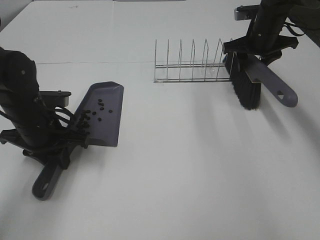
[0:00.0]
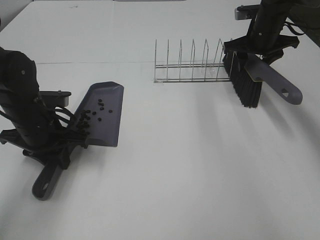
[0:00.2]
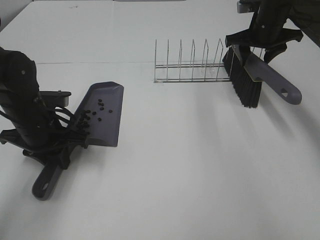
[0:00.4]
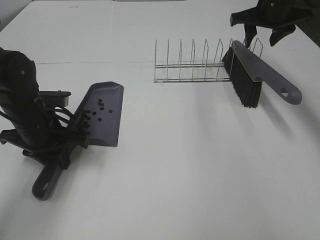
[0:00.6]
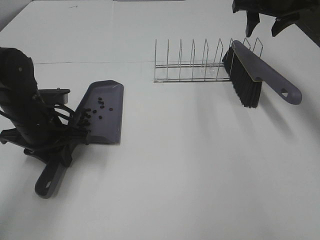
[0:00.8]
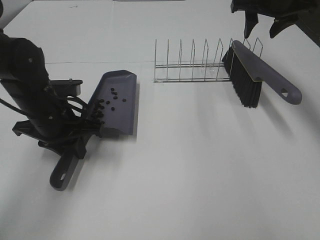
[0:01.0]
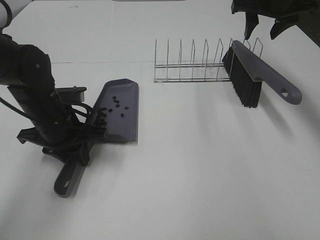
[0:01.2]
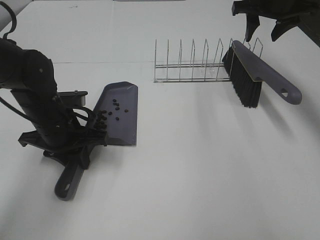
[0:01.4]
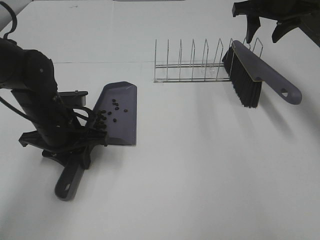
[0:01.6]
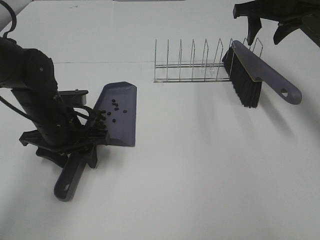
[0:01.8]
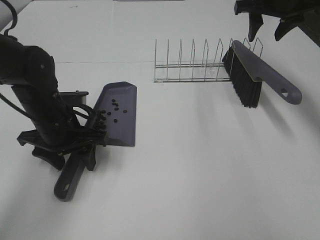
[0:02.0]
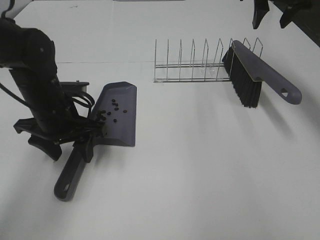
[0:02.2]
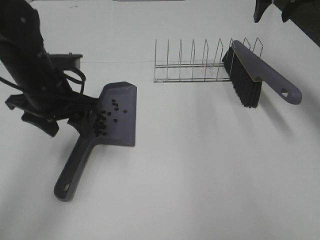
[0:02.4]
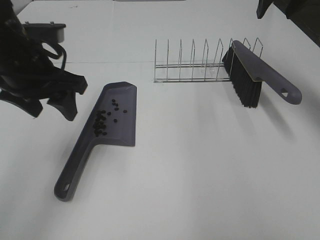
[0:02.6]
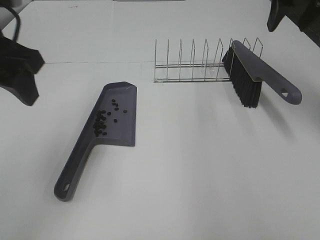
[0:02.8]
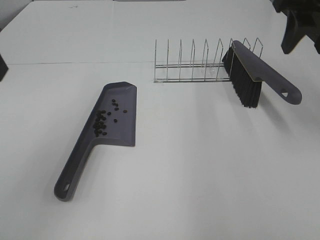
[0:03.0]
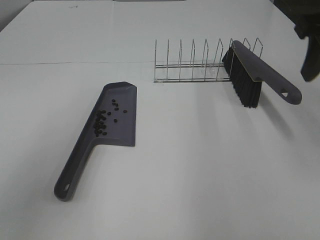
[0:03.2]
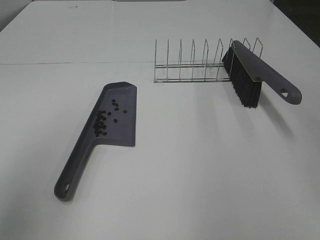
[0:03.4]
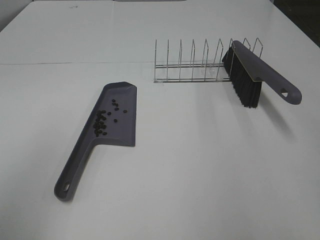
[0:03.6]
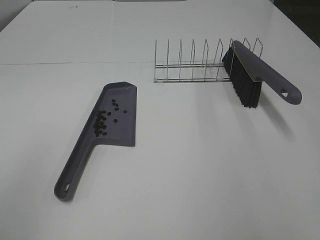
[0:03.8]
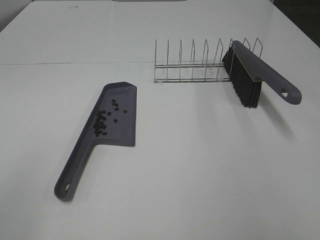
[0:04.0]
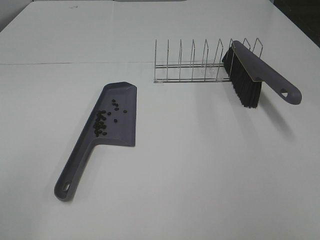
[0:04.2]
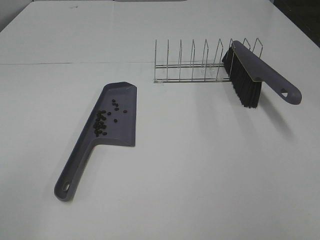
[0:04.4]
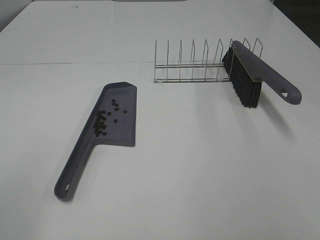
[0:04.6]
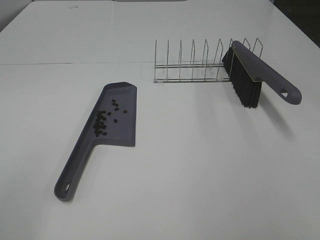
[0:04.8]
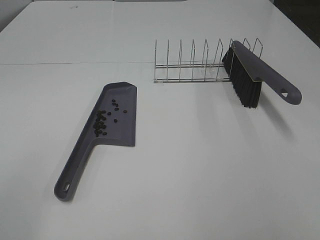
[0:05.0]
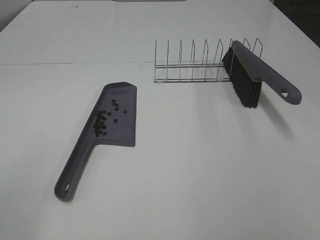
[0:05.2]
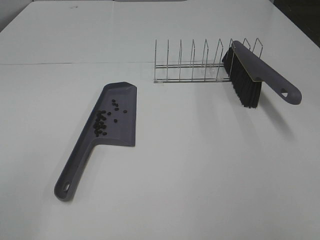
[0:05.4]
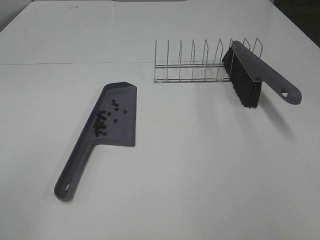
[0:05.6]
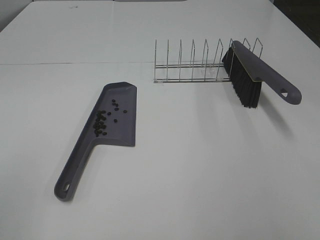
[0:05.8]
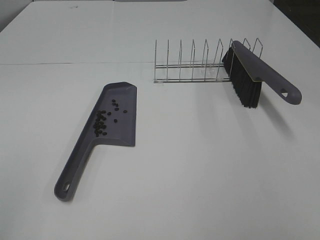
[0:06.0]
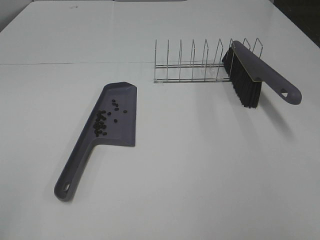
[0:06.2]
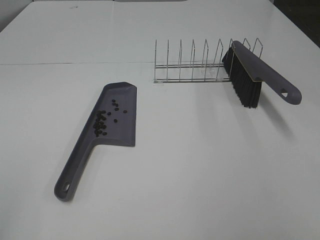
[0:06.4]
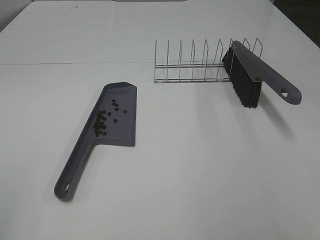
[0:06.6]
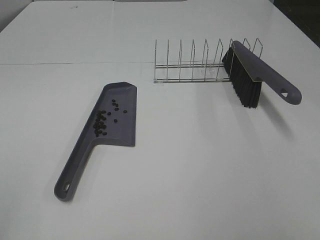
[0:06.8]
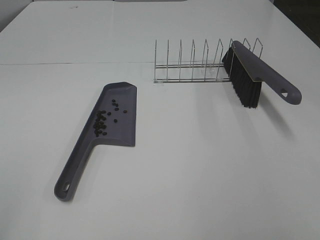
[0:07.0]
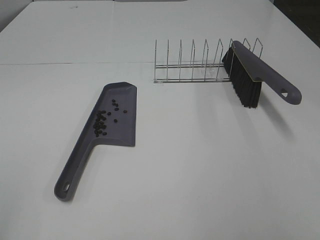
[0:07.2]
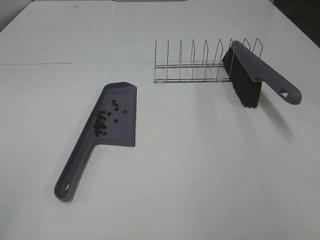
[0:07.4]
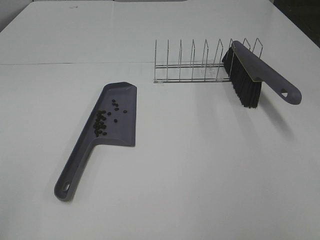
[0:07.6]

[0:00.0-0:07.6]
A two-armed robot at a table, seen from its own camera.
Task of the whole recording: Sweep Coffee Bean.
Step, 0:00.4 to 0:02.0: Left hand:place the dustpan on the table.
0:00.0 to 0:01.6: The right gripper is displaced upward by some 10 cm.
0:01.6 to 0:03.0: The left gripper shifts approximately 25 cm upward, and opens up. Meanwhile the right gripper goes about 15 cm backward and upward.
0:03.0 to 0:04.6: The right gripper shifts about 30 cm backward.

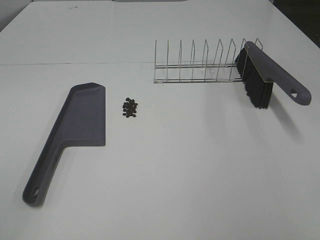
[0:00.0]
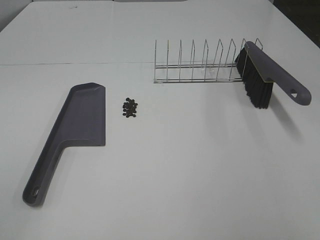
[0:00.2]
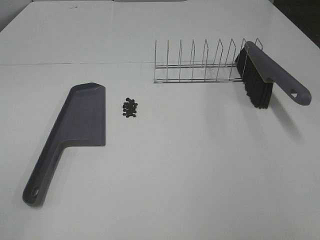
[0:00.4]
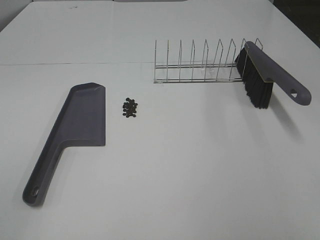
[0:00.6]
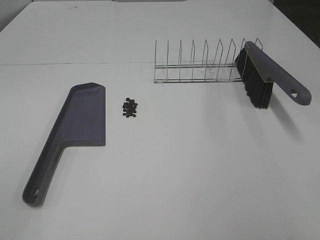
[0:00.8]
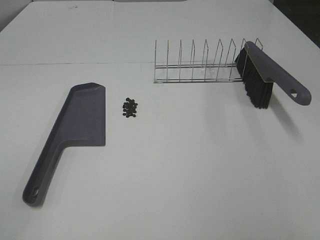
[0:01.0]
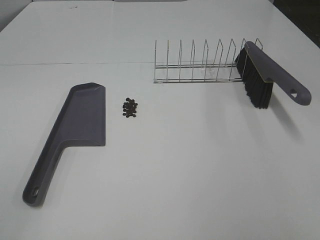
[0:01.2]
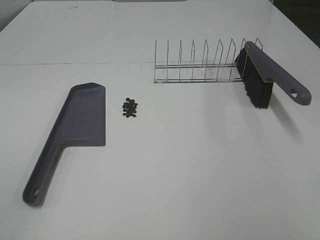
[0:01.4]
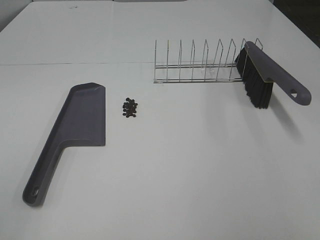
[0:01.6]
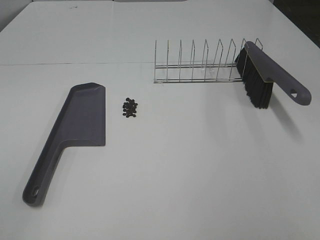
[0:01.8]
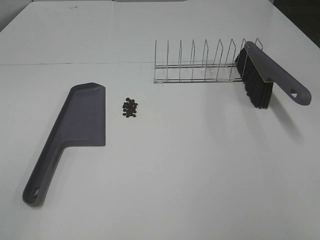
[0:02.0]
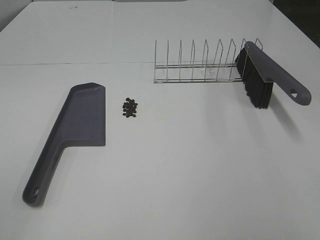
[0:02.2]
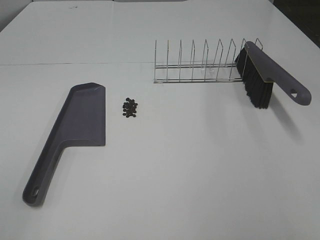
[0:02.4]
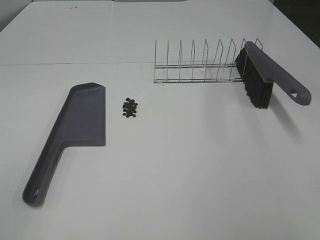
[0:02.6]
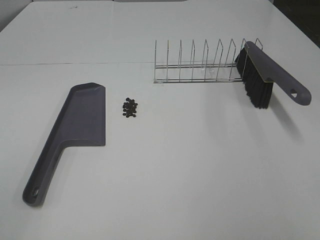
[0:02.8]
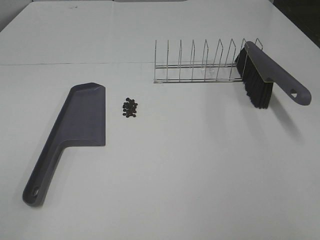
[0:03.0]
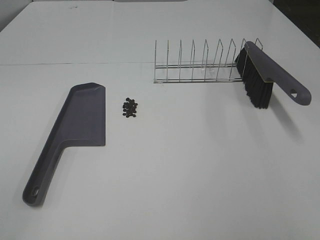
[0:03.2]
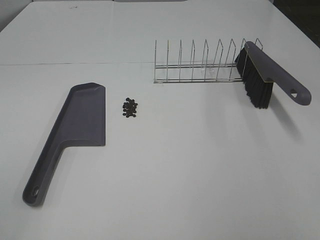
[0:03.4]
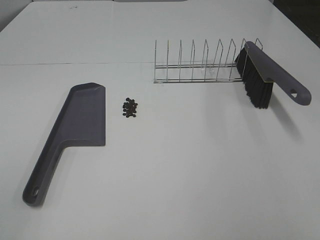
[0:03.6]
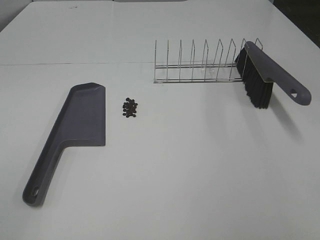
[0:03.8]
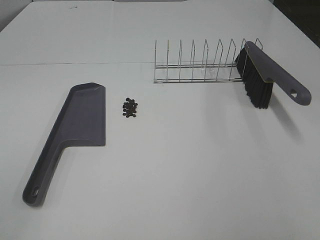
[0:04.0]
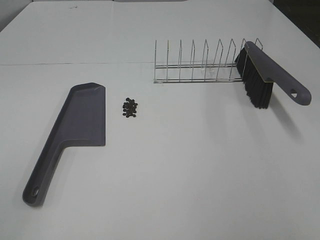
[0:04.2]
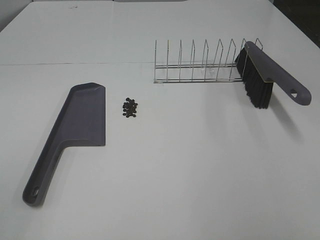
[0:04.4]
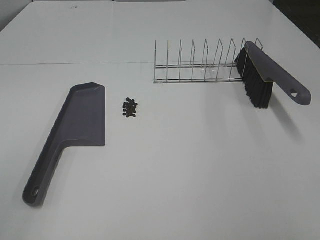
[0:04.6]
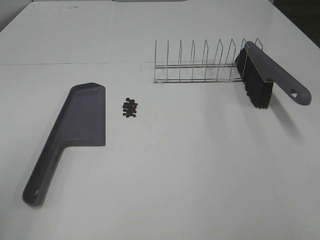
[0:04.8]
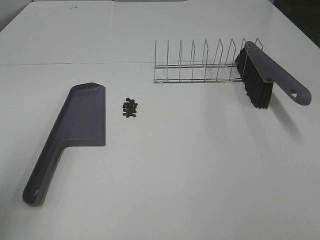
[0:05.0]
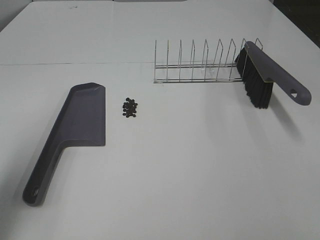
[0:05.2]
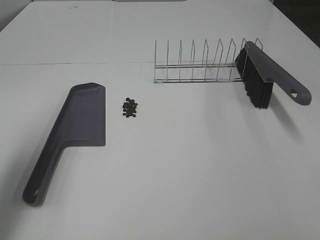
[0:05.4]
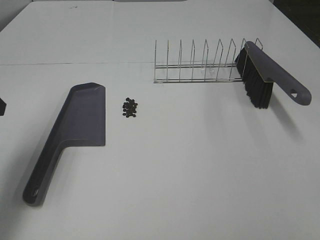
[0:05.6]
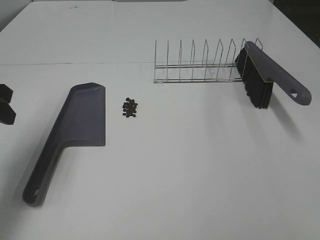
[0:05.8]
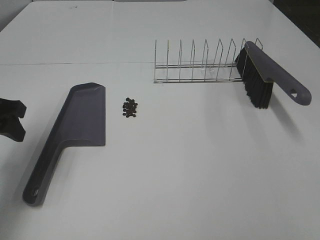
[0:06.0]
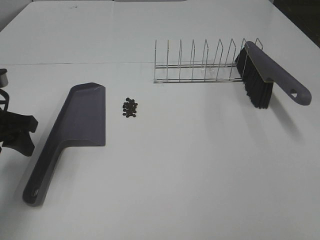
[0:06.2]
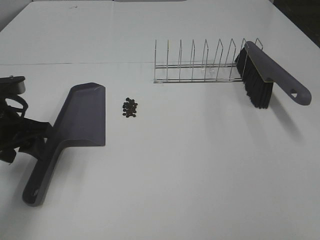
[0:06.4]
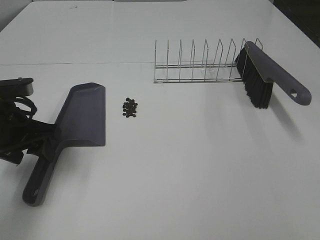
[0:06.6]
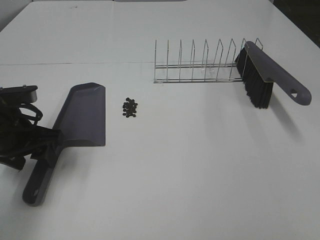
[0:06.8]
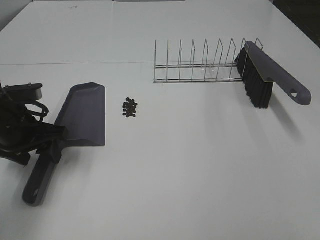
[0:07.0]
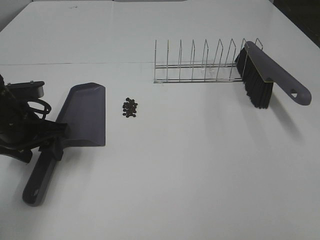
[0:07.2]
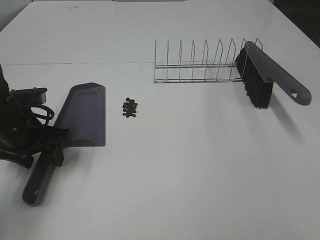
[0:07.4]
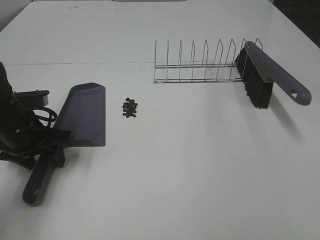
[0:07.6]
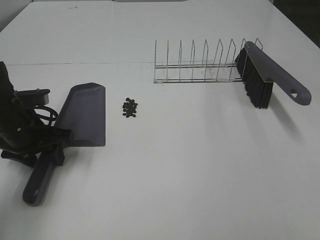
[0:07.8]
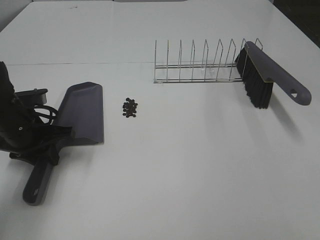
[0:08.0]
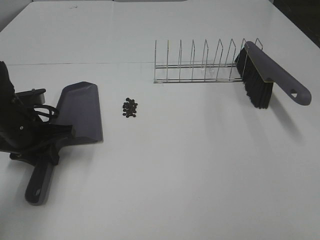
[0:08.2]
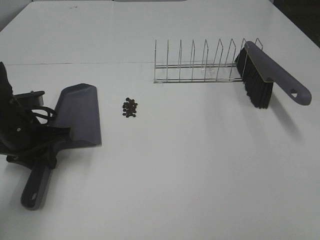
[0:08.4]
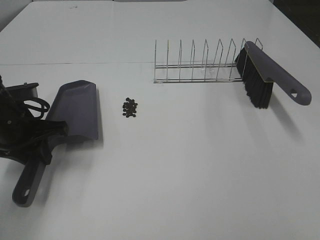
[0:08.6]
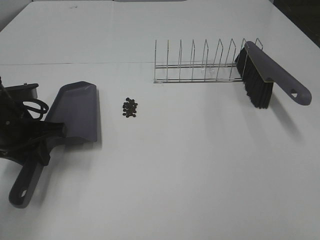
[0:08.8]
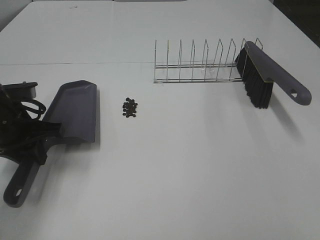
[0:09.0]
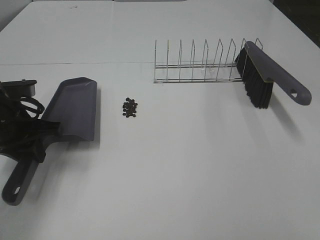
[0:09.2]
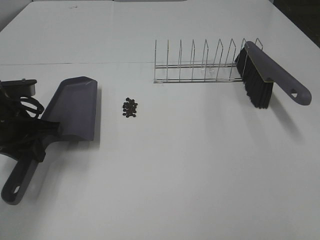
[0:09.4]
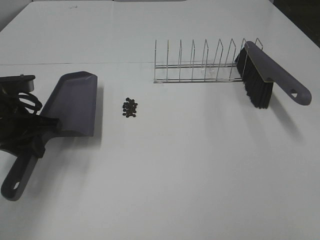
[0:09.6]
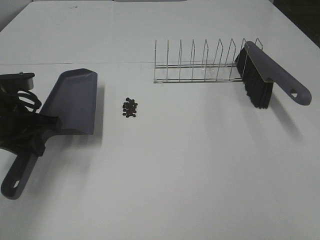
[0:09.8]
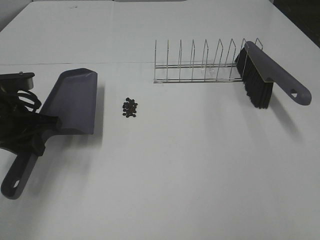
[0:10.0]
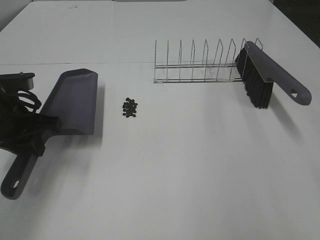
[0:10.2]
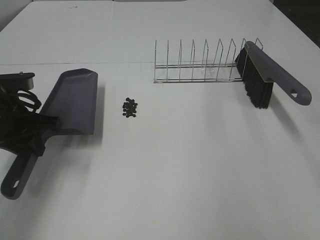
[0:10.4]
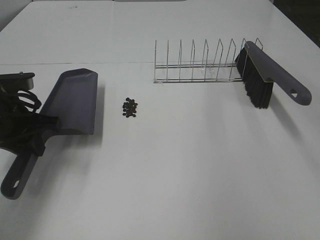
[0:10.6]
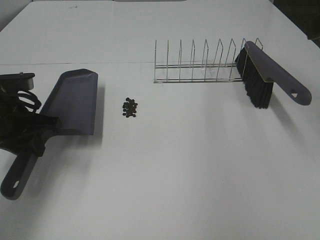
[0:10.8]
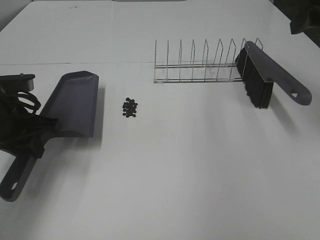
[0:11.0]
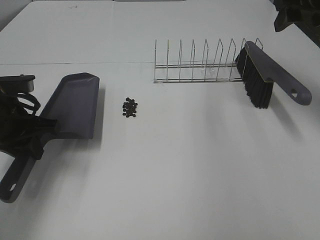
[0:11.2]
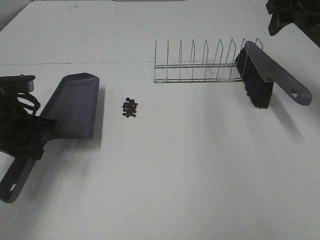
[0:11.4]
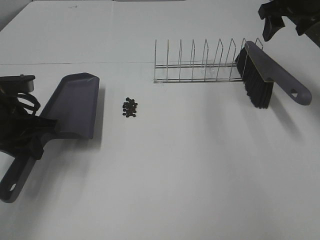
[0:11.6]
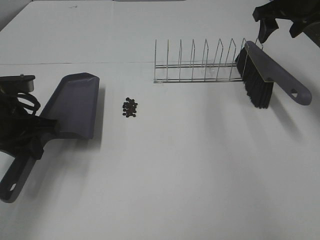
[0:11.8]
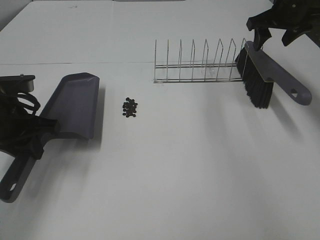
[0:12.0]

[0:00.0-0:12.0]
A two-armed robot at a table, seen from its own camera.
Task of the whole recording: Sweep Coffee Bean.
Step, 0:00.0 to 0:08.0: Left hand: grab the dustpan.
0:00.0 to 0:03.0: Both grippers stay about where they are.
0:04.4 to 0:06.0: The left gripper moves forward and downward, some 30 cm.
0:06.0 to 0:07.6: The left gripper moves downward, approximately 10 cm.
0:07.6 to 0:09.0: The left gripper closes up.
0:10.4 to 0:12.0: The right gripper shifts about 35 cm forward.

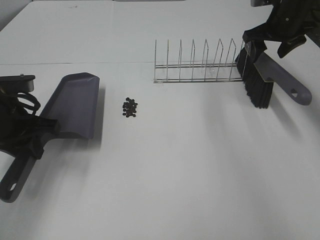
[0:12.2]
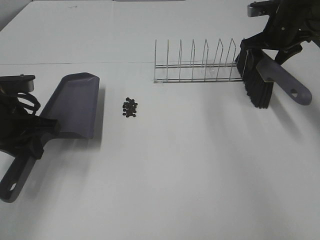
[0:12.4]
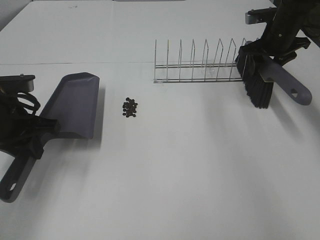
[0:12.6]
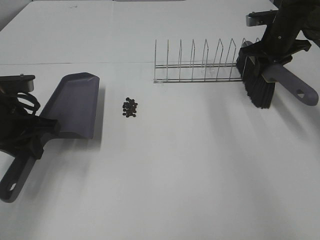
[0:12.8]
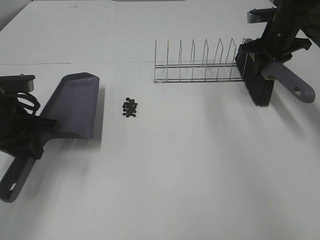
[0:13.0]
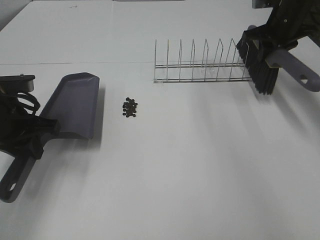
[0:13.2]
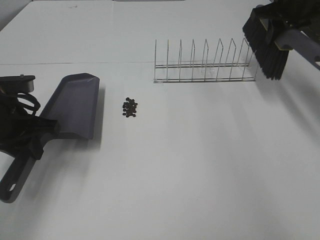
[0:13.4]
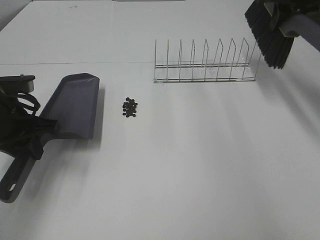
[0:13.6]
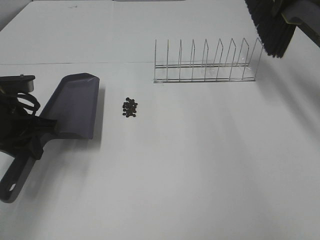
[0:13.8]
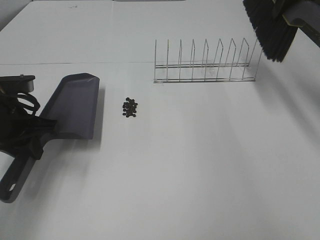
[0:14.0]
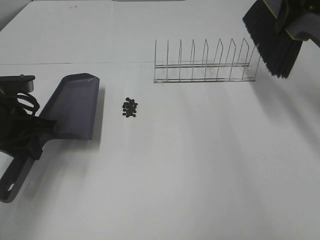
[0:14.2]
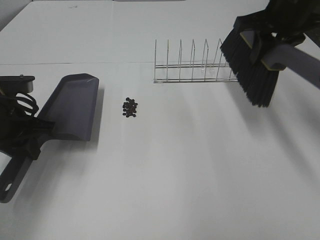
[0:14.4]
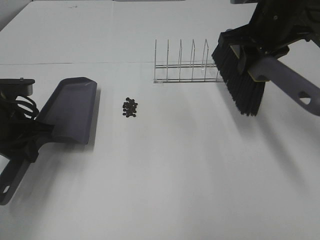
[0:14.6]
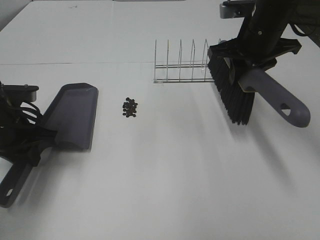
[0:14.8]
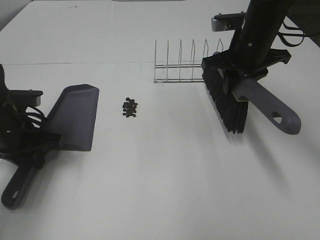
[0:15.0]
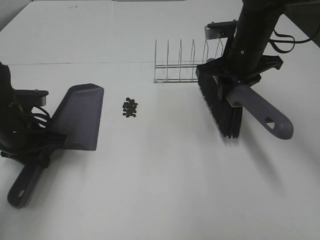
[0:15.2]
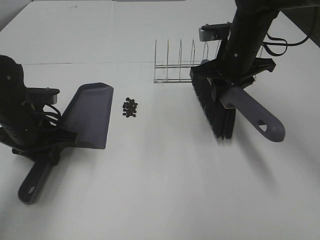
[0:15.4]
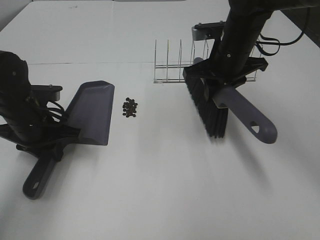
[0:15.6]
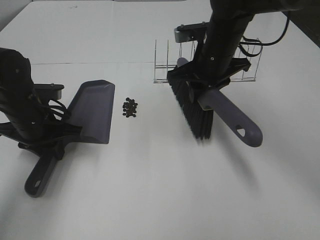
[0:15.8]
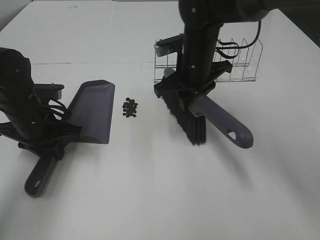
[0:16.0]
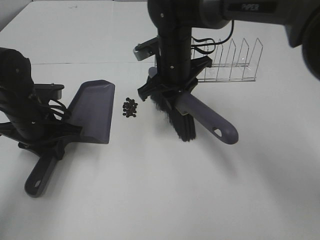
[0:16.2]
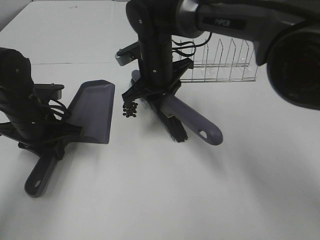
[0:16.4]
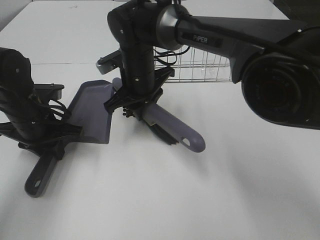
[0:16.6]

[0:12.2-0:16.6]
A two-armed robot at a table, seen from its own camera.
Task of the whole recording: Sweep Coffee Bean.
Step, 0:12.2 to 0:15.6: Left hand: move the dustpan to the left side of the coffee beans.
0:12.2 to 0:13.6: The right gripper travels upward by approximately 10 cm, and closes its fingers.
0:13.6 to 0:15.2: The right gripper heads to the left, downward and backward, covering approximately 20 cm.
0:15.2 to 0:16.6: The right gripper travels to the left by roughly 20 cm.
